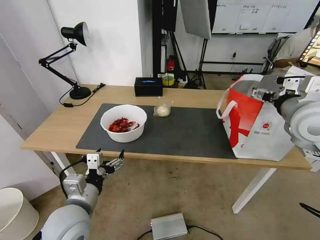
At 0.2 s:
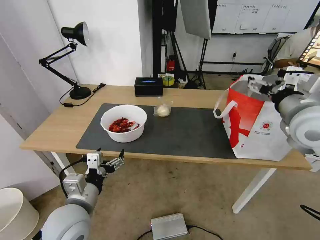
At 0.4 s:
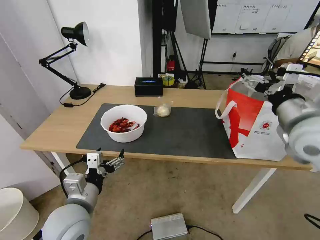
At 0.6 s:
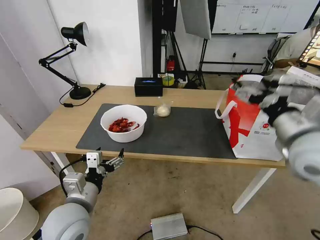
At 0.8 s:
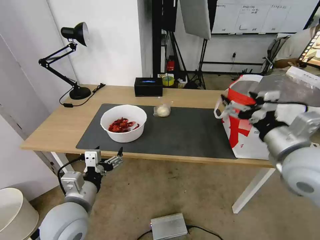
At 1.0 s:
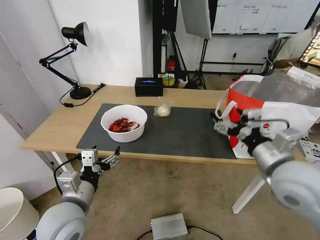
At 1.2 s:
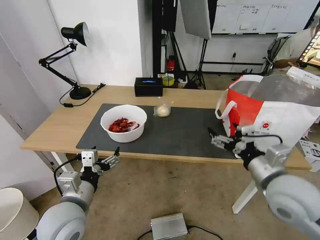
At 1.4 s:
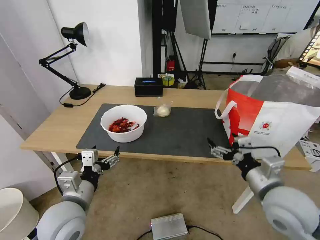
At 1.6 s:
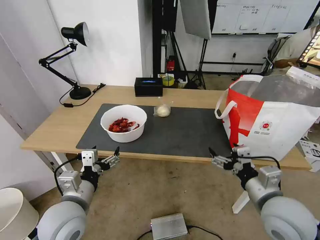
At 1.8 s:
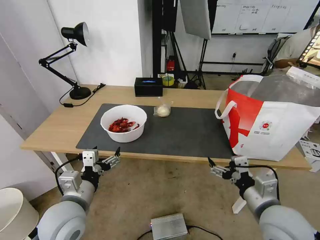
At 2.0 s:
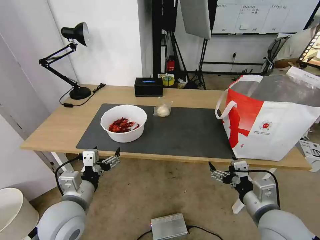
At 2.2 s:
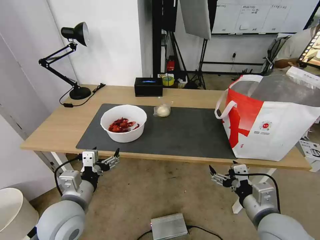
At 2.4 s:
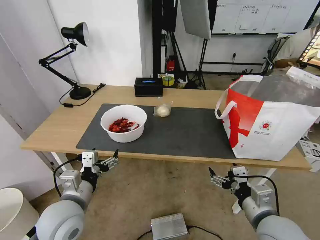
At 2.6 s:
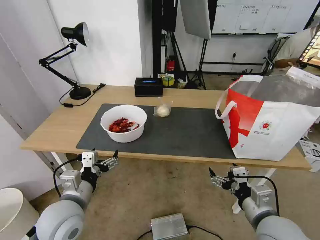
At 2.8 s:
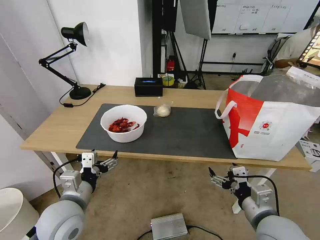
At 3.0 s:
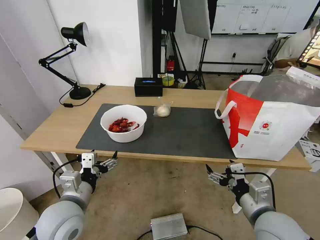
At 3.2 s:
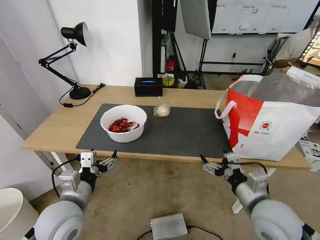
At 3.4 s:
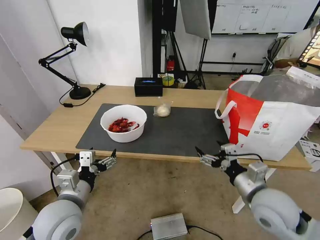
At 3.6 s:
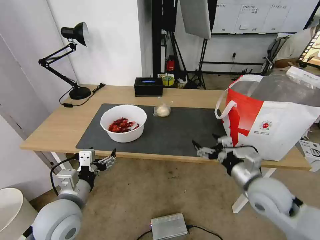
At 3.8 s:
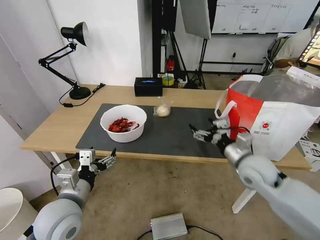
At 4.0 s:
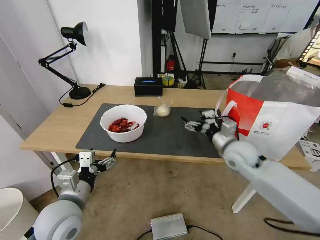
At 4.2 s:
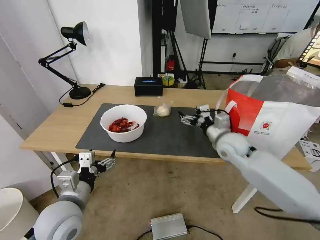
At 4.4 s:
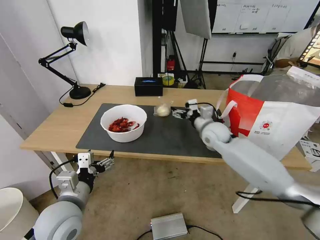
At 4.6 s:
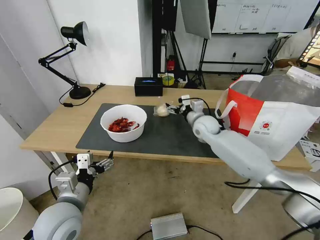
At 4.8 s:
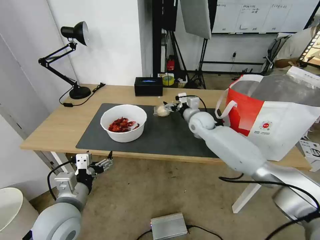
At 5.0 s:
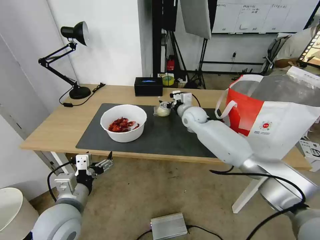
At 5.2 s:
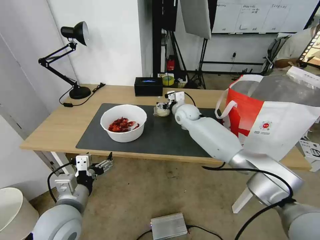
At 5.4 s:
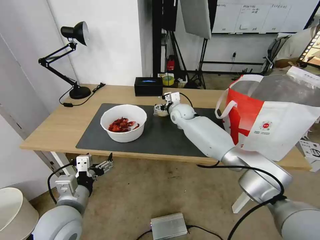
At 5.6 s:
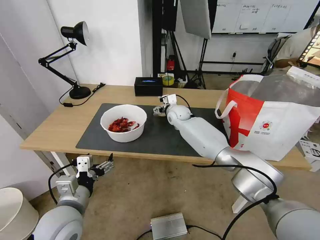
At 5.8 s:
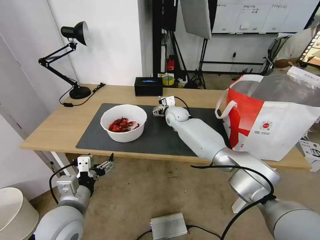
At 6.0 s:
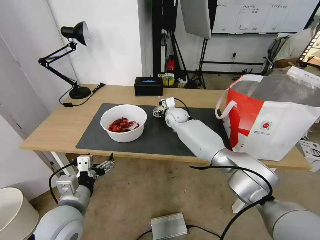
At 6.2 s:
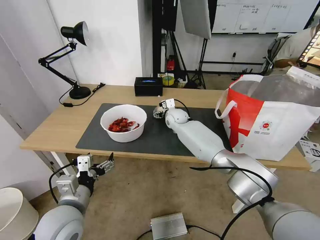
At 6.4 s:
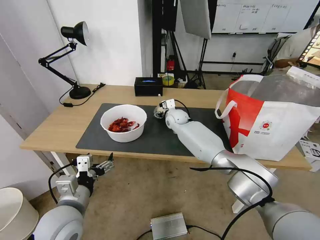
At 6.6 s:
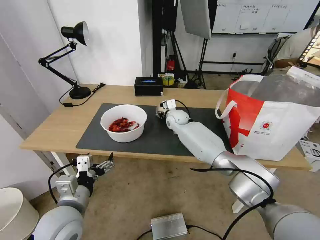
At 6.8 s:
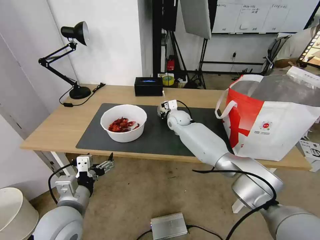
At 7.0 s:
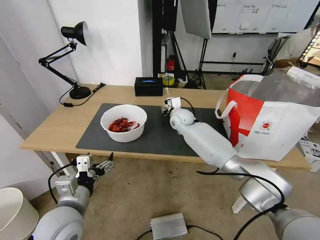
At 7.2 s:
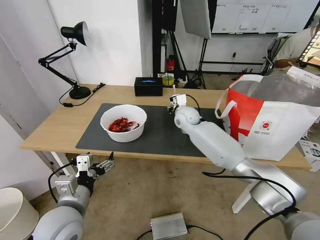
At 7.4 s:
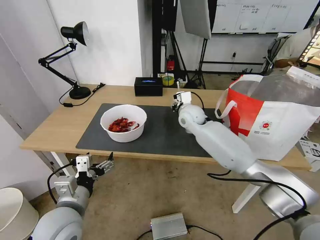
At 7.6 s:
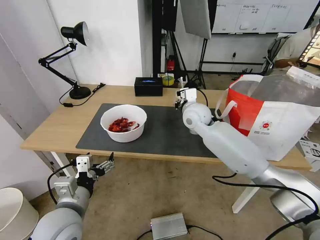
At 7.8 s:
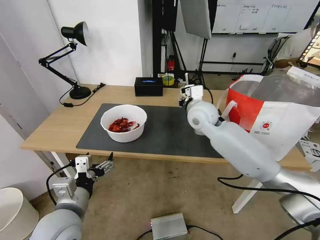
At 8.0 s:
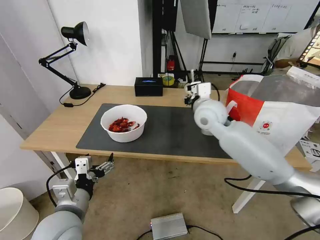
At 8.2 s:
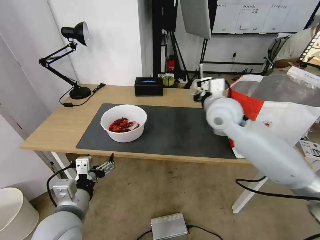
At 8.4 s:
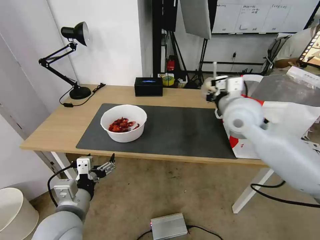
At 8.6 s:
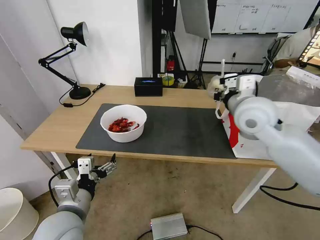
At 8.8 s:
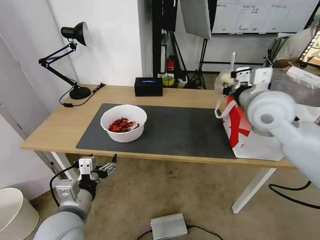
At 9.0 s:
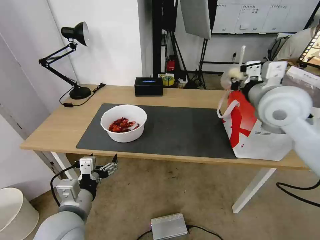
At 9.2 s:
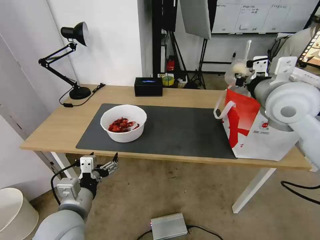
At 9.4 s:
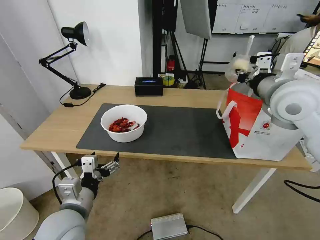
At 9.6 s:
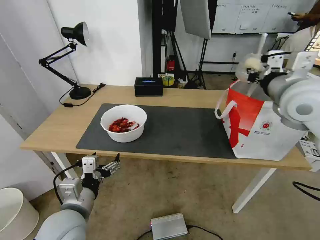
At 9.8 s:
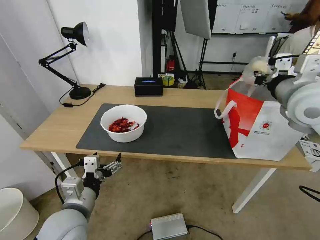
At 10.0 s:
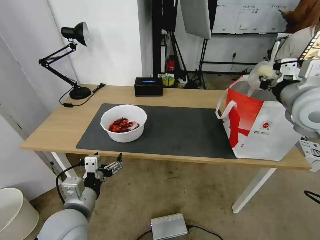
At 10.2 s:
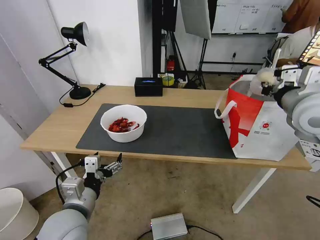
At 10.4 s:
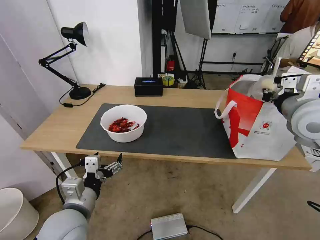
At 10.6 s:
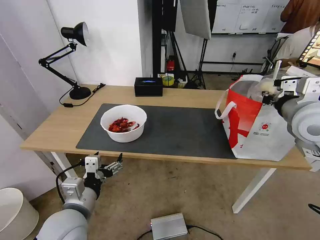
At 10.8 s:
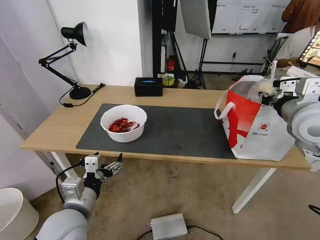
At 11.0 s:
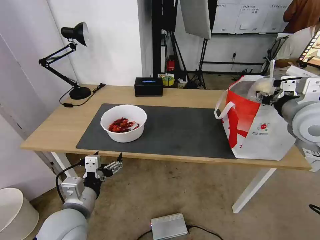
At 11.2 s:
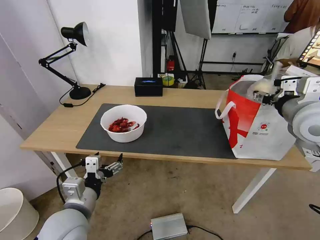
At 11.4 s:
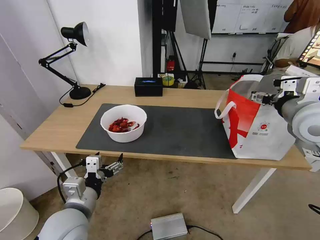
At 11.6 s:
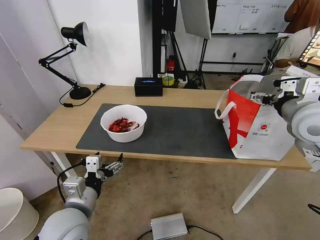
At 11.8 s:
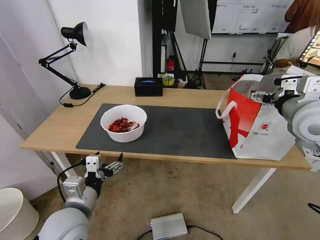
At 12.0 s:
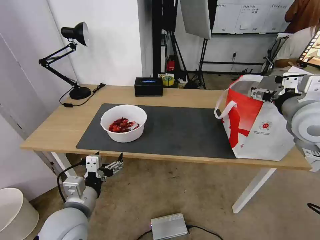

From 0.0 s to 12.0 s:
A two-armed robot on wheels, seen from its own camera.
Task of the whole recording: Pick up the trash from the table and place it into the takeout bag.
From 0.0 s to 1.6 s: The right gripper moves downward and backward, about 20 cm.
From 1.6 s to 3.0 s: There are only small adjustments of the grippers.
From 3.0 s to 4.4 s: The right gripper travels forward by about 30 cm.
From 4.4 s to 6.0 s: The right gripper travels to the left and forward by about 20 cm.
From 6.0 s to 7.6 s: The right gripper travels backward and upward by about 15 cm, and closes up.
From 7.6 s to 9.0 s: The right gripper travels to the right, upward and backward by about 25 cm.
From 9.0 s to 10.4 s: The right gripper is displaced to the right by approximately 10 cm.
From 10.4 s to 12.0 s: The right gripper opens.

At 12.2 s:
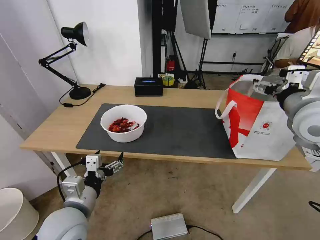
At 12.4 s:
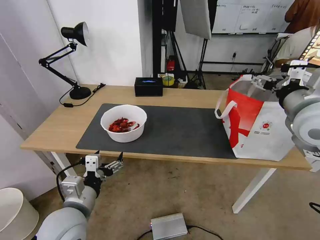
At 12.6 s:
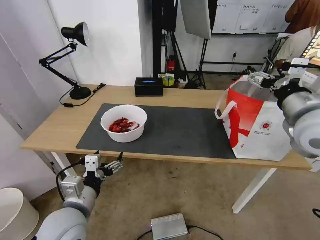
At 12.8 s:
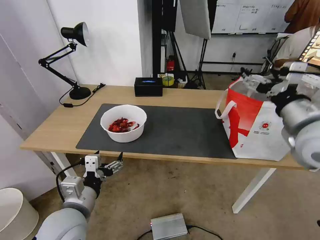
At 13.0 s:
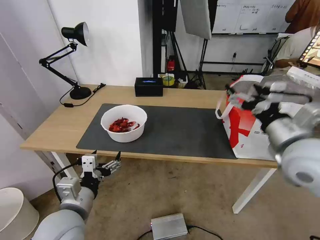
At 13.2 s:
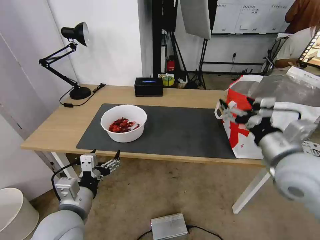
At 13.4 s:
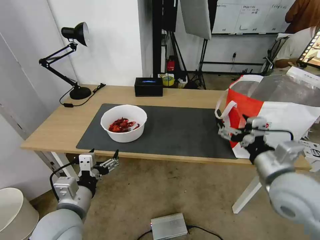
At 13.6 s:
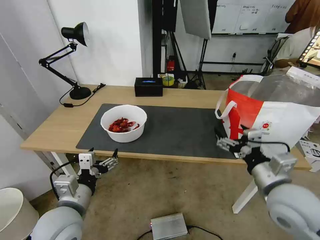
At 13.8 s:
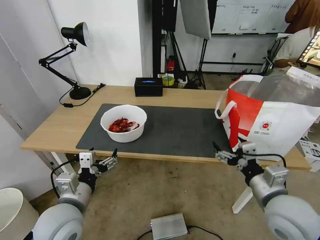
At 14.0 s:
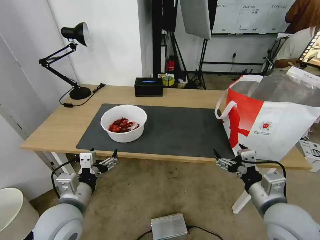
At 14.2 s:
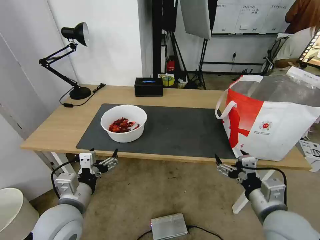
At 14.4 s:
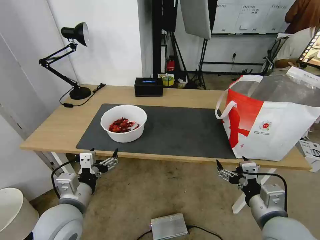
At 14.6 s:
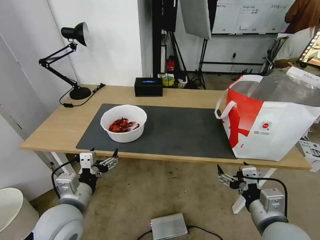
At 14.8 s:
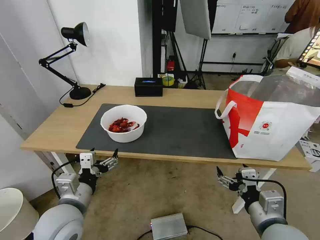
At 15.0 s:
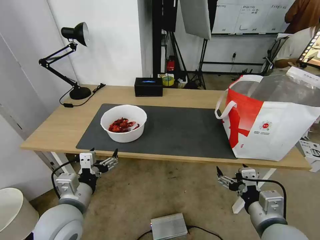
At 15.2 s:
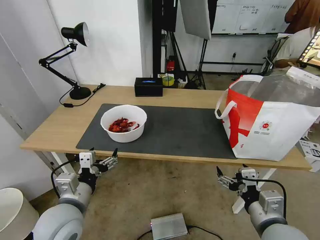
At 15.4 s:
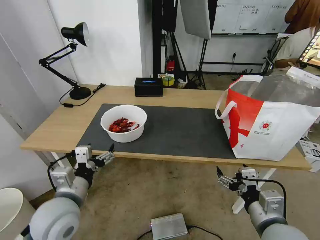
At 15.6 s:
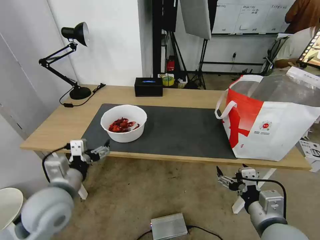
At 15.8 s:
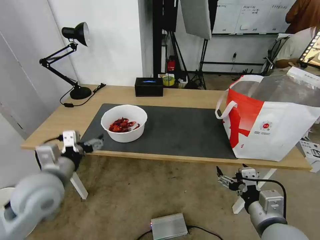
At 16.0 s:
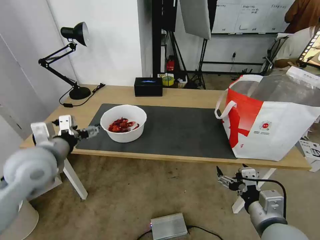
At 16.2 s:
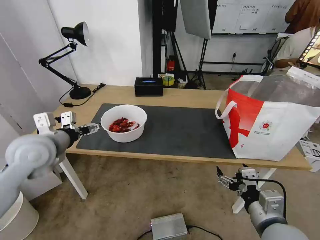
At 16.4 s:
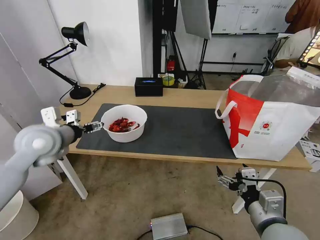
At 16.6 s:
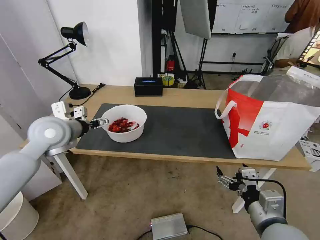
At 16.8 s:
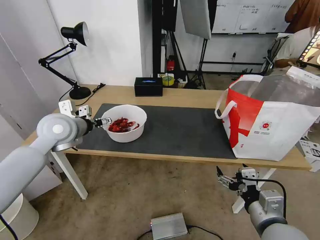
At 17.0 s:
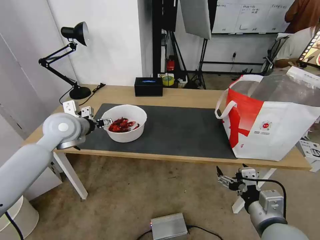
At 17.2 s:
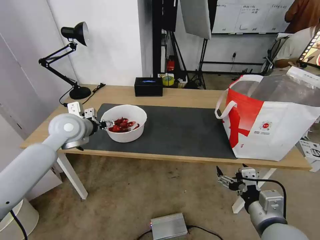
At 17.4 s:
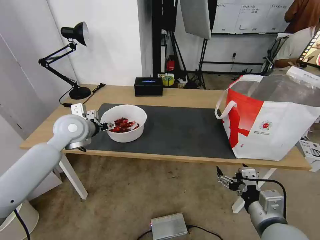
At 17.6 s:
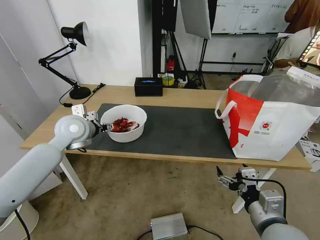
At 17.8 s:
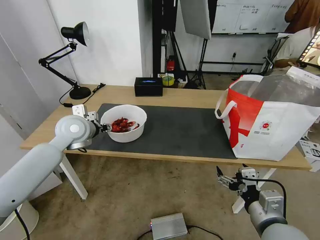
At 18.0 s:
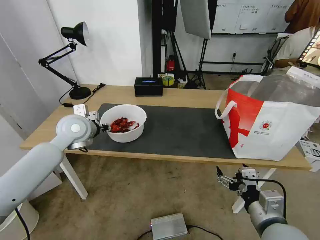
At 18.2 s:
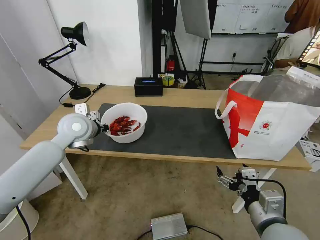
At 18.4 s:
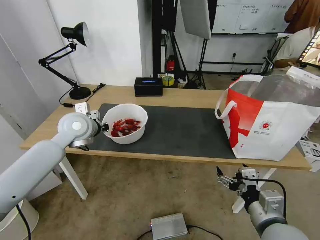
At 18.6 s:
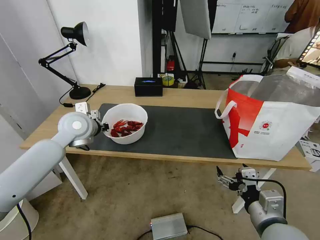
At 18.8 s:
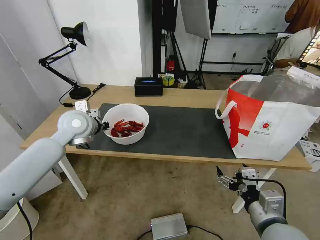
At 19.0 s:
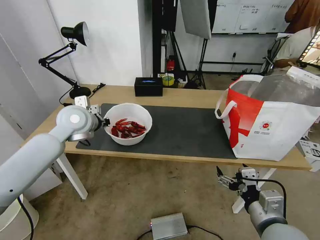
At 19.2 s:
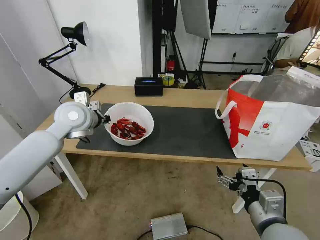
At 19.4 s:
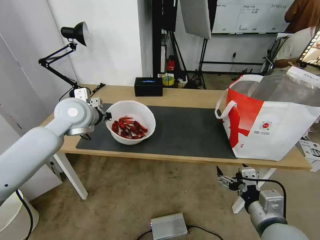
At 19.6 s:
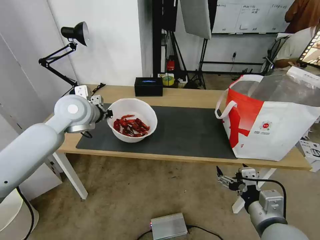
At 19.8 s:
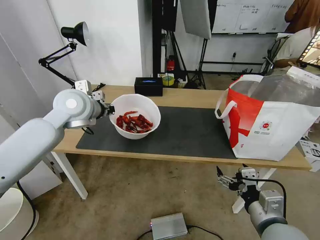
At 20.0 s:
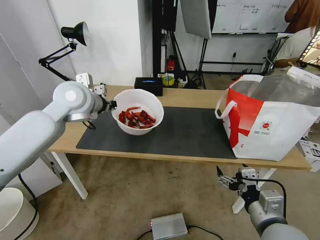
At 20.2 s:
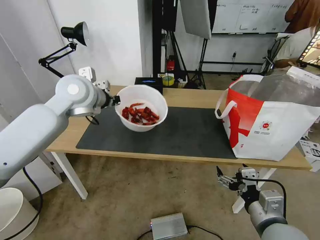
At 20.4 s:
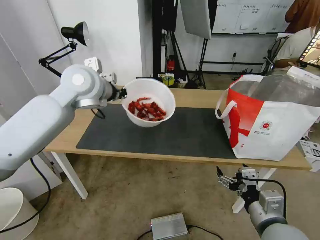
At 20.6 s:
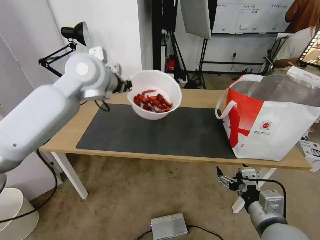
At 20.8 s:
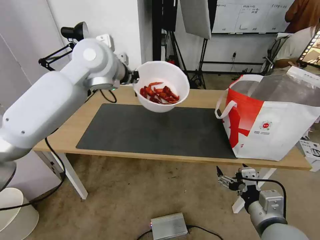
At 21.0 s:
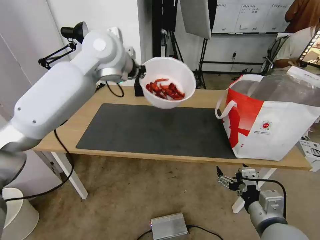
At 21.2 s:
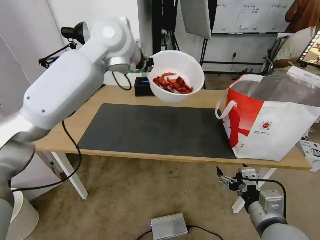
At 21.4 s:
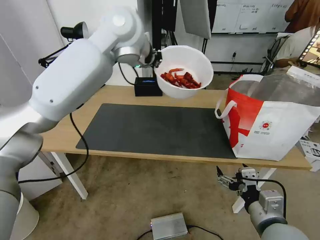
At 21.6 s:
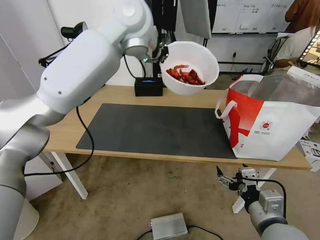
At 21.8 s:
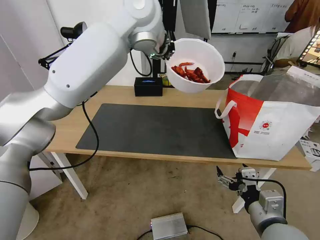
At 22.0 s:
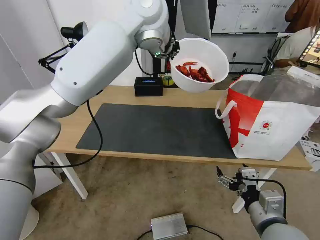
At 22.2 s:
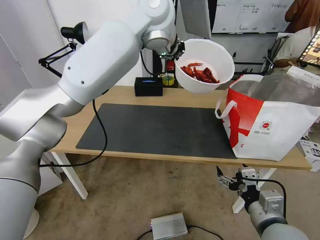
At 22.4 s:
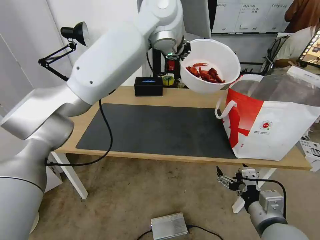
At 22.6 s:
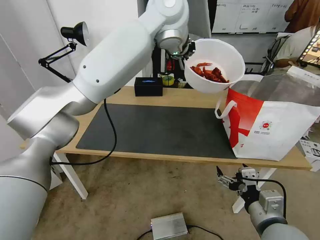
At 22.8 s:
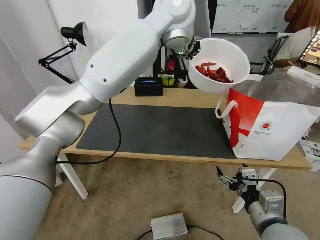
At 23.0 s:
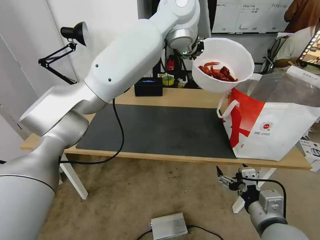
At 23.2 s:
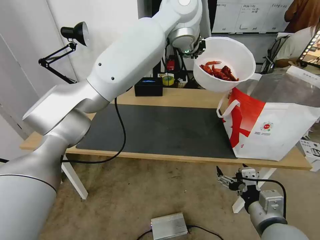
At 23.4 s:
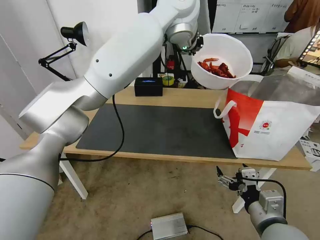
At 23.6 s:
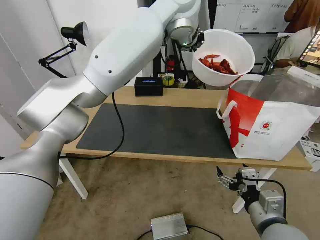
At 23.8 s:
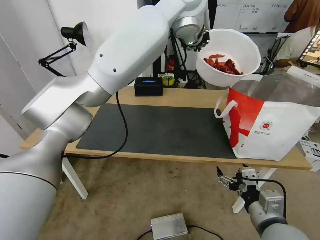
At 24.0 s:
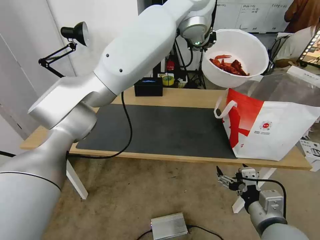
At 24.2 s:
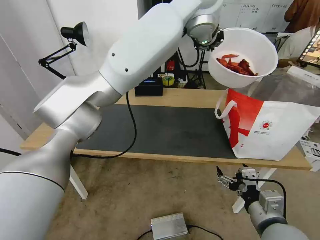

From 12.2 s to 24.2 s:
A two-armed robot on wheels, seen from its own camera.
Task of the whole recording: Pick up the trash from the table and place it into the takeout bag.
From 12.2 s to 13.8 s: The right gripper travels downward and backward by some 20 cm.
From 13.8 s to 15.2 s: The right gripper shifts about 5 cm backward.
From 15.2 s to 16.6 s: The left gripper goes about 25 cm forward and upward.
From 16.6 s to 18.2 s: The left gripper ends up some 5 cm from where it was, and closes.
From 18.2 s to 19.8 s: The left gripper heads upward, covering approximately 10 cm.
From 19.8 s to 21.2 s: The left gripper travels upward and to the right by roughly 20 cm.
From 21.2 s to 22.6 s: The left gripper shifts approximately 10 cm to the right.
From 22.6 s to 24.2 s: The left gripper goes approximately 5 cm to the right.
